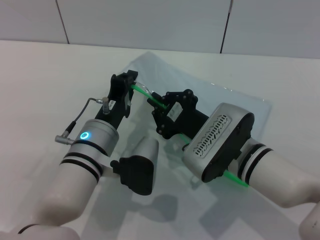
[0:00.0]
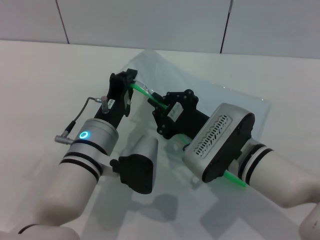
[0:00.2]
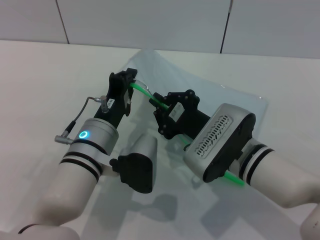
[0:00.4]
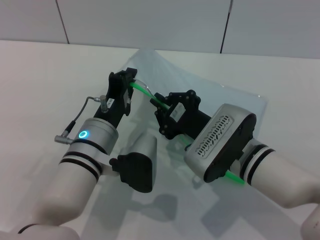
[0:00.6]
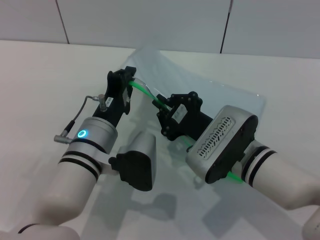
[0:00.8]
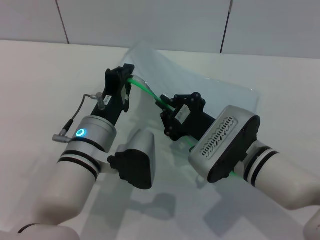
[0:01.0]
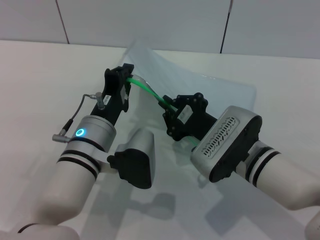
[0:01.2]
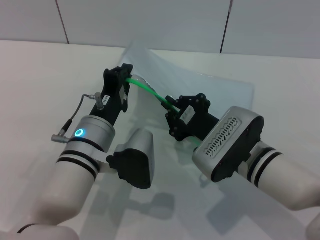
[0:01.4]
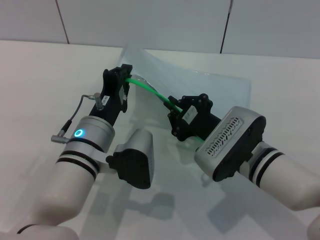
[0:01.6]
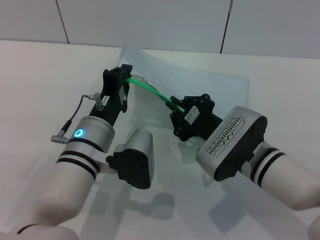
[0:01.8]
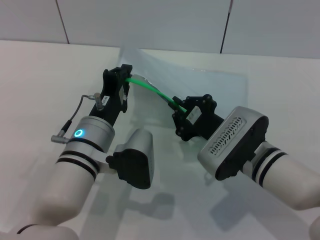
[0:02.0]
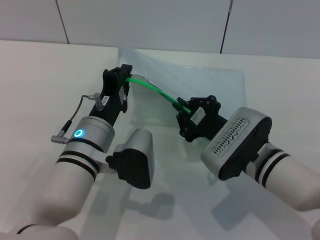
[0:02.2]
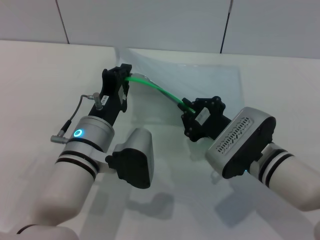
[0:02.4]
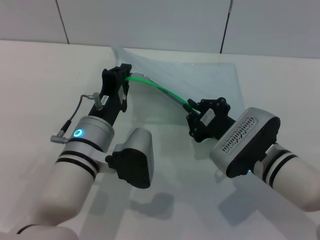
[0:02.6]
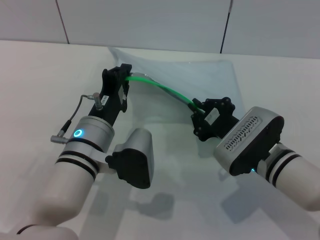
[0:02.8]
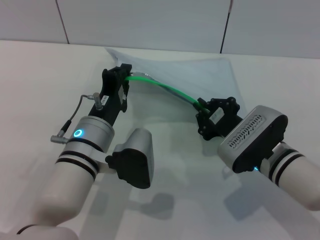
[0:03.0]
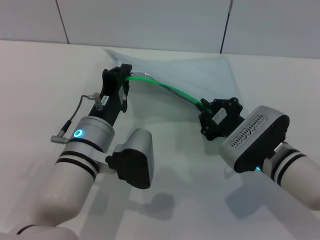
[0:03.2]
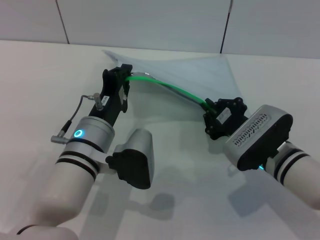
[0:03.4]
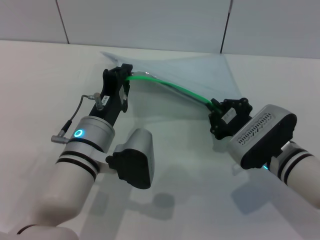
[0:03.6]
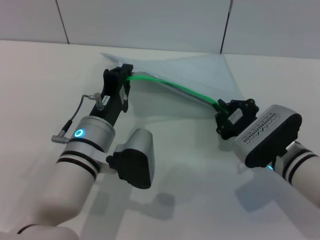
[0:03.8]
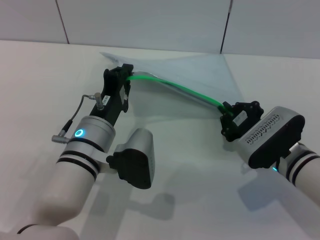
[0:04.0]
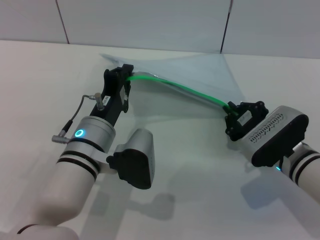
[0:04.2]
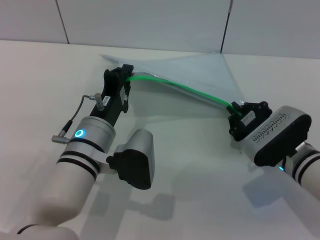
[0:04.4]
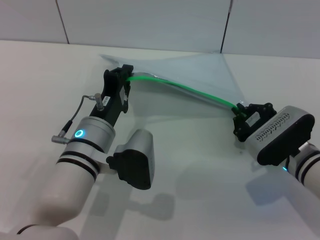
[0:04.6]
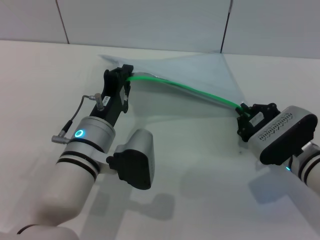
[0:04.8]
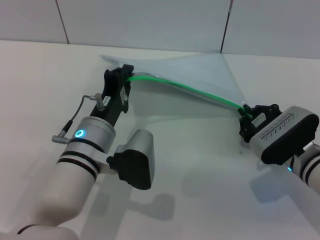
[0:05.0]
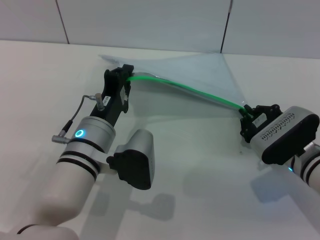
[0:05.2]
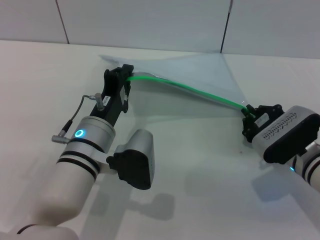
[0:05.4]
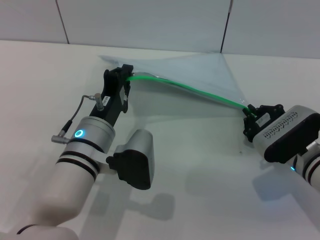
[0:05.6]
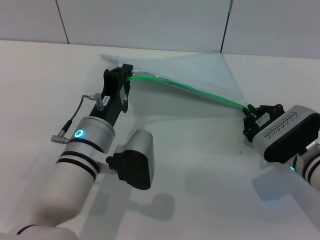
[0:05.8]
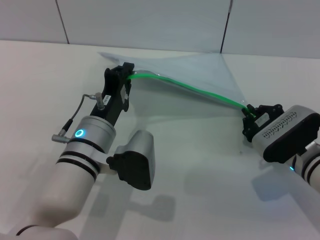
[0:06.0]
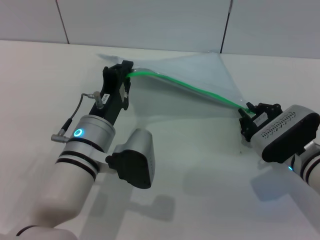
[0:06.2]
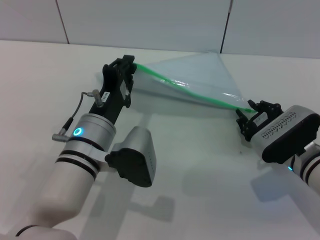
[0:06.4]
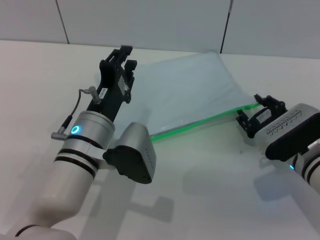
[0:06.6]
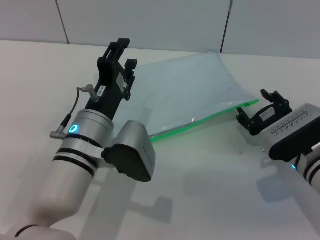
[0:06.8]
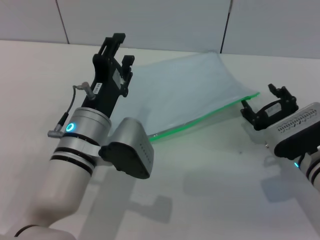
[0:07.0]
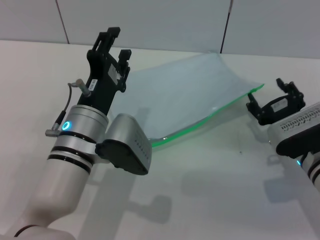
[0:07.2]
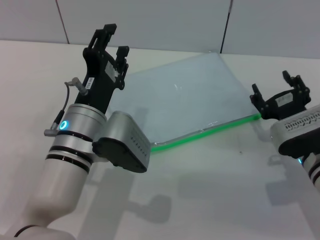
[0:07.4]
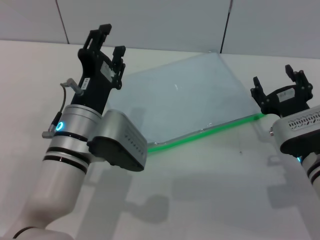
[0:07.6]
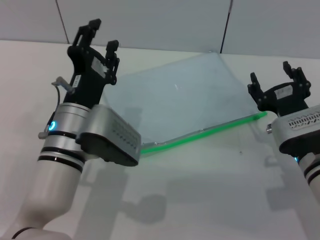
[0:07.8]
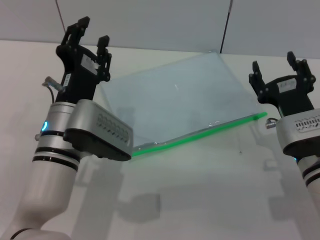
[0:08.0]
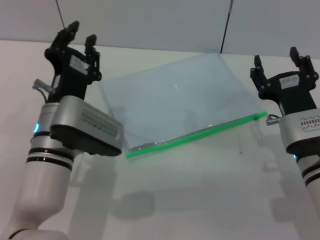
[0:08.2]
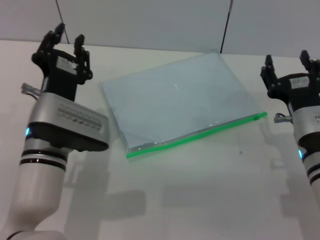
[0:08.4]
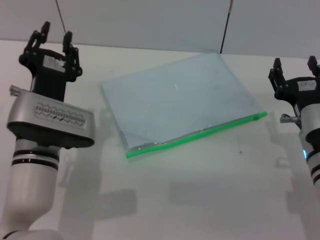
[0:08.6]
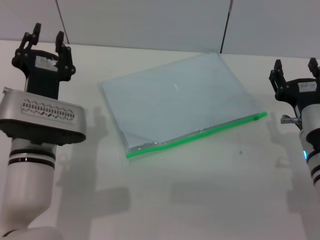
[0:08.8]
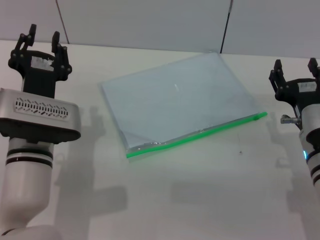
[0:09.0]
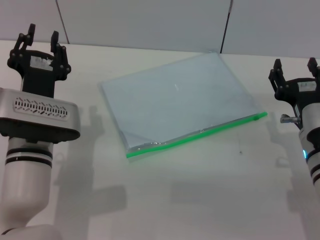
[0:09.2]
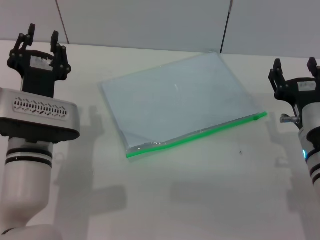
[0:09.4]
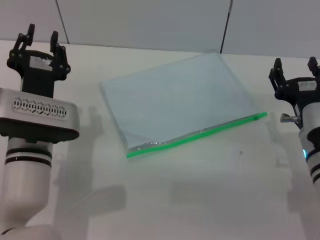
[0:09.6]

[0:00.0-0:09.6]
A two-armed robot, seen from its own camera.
Step, 0:00.0 to 0:06.8: Pulling up the zipper on the transparent plastic bag with the right gripper to close it.
Step, 0:07.0 to 0:08.0: Place the transparent plastic bag.
0:00.0 to 0:01.6: The grippers move only a little.
0:01.6 to 0:03.2: The grippers move only a little.
0:03.2 to 0:04.8: The right gripper travels to the right by approximately 5 cm.
0:04.8 to 0:06.4: The two grippers keep their place.
0:06.4 to 0:08.0: The right gripper changes place by roughly 5 cm, and opens up. Meanwhile the left gripper opens.
